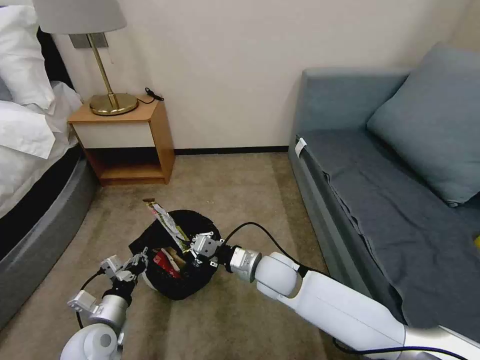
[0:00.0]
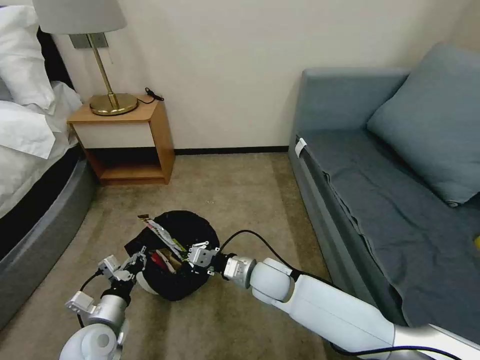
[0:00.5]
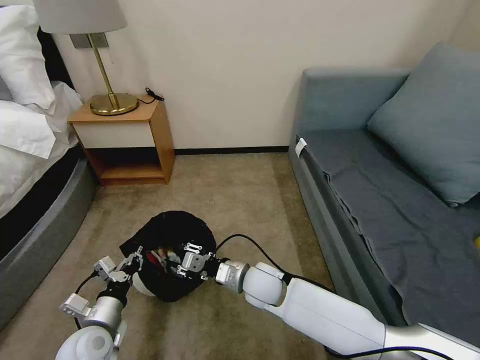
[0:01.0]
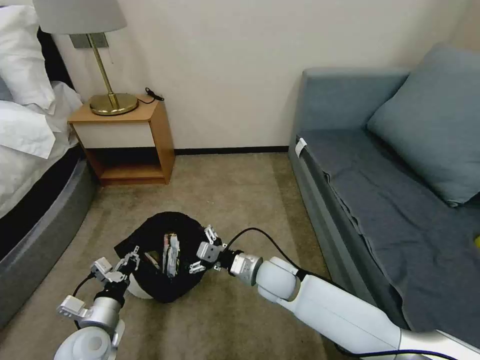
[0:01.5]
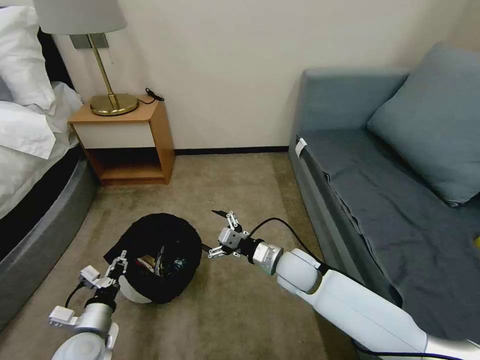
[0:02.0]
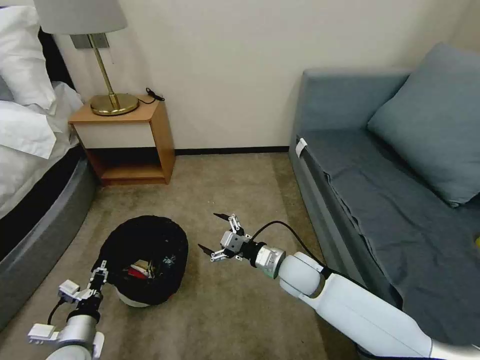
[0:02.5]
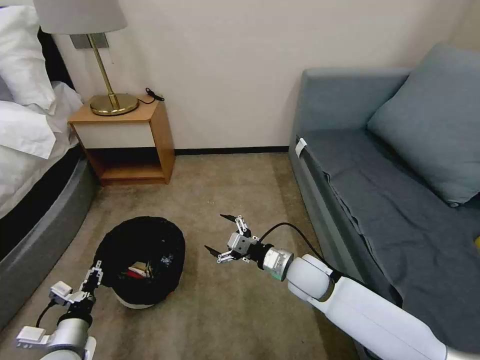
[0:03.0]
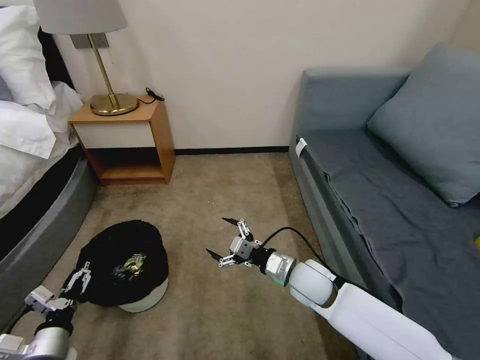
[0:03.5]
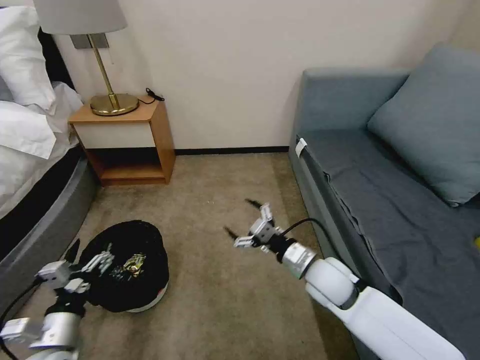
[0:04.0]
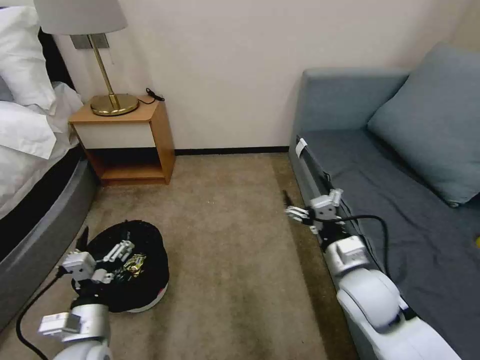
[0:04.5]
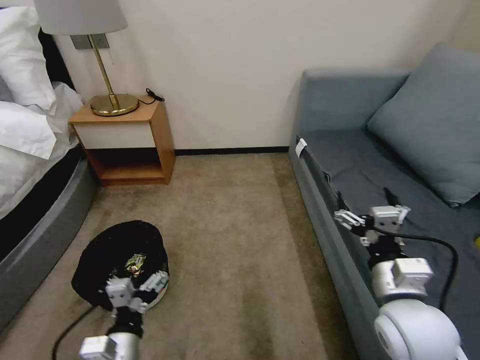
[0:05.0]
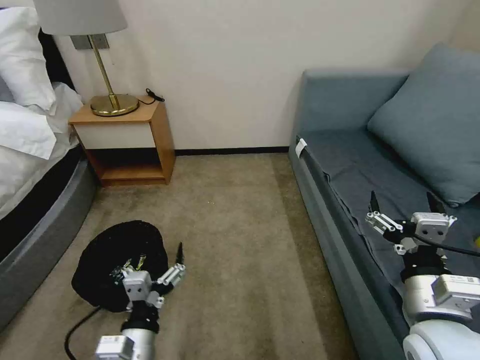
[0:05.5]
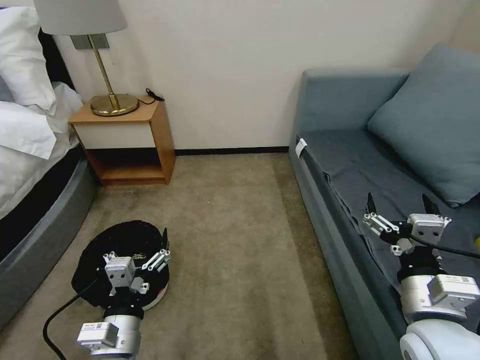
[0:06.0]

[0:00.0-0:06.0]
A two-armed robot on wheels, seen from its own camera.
Task of the whole recording: Pick up the trash bin, then pick up the garbage on the floor and place it into the trash bin.
0:00.0 to 0:02.0: The right gripper ends up roughly 5 cm from where it was, and opens up.
0:02.0 to 0:04.0: The left gripper travels upward by some 5 cm, and opens up. The right gripper travels to the right by approximately 5 cm.
0:04.0 to 0:06.0: The right gripper is displaced backward, upward and to the right by about 20 cm, while the left gripper moves to the right, approximately 15 cm.

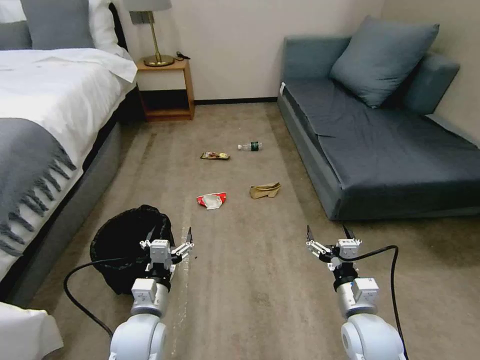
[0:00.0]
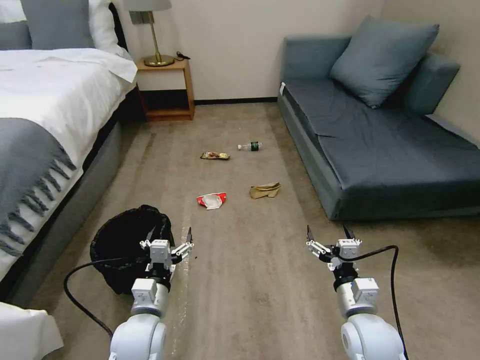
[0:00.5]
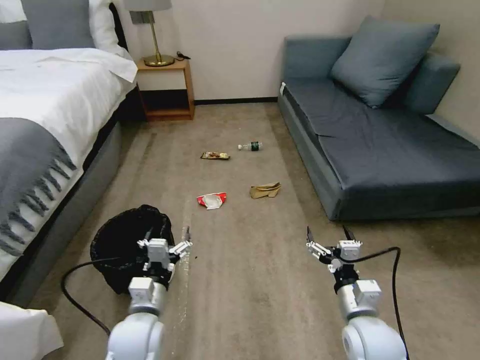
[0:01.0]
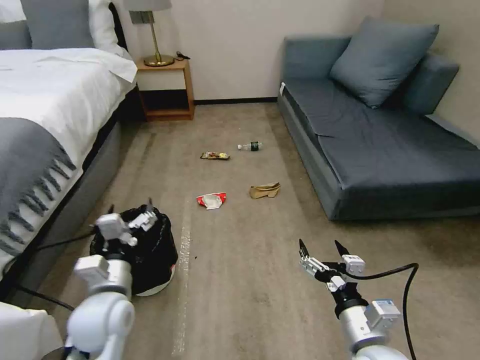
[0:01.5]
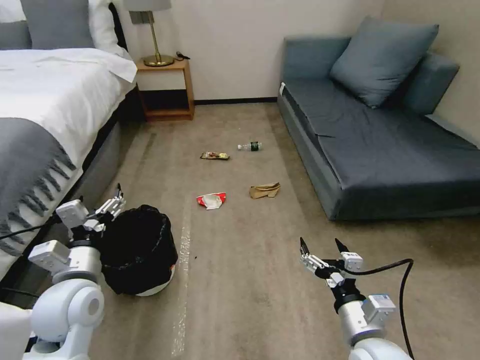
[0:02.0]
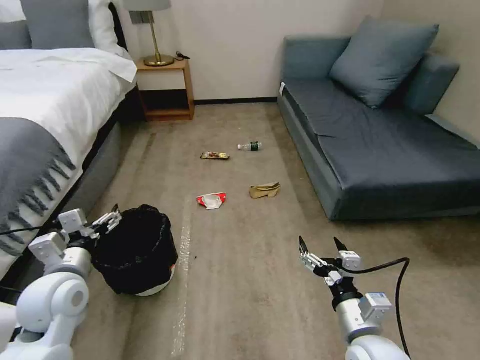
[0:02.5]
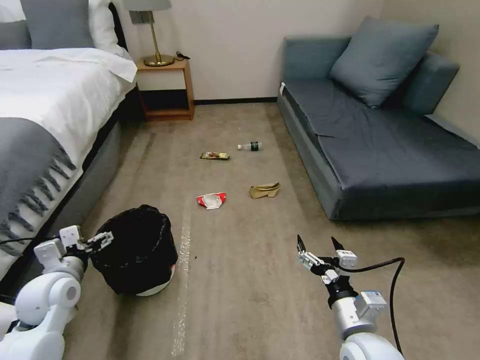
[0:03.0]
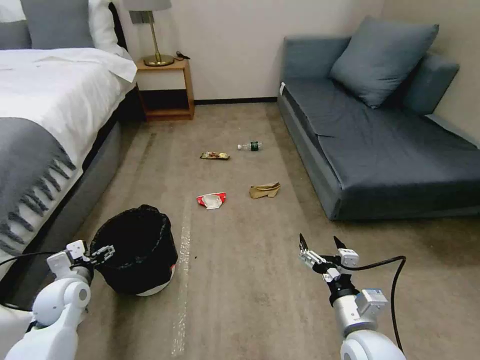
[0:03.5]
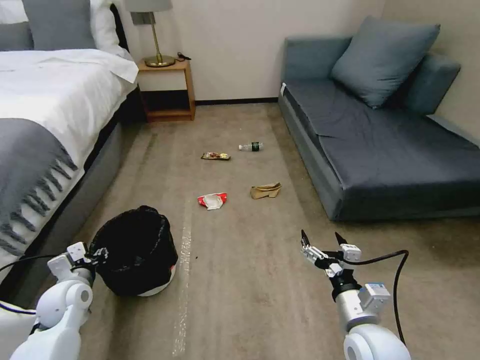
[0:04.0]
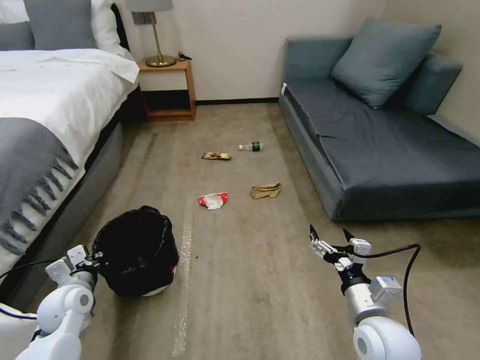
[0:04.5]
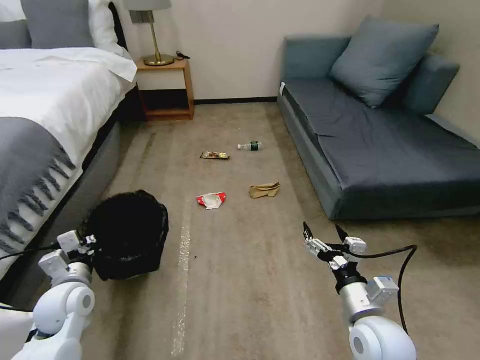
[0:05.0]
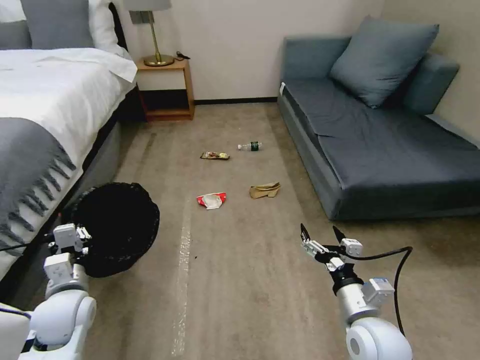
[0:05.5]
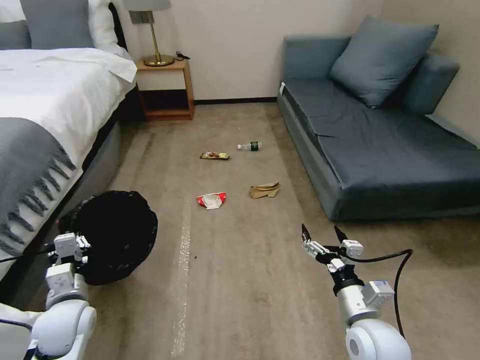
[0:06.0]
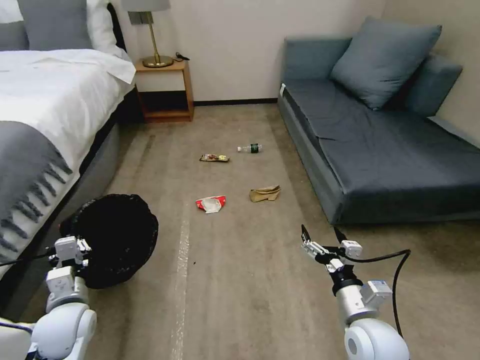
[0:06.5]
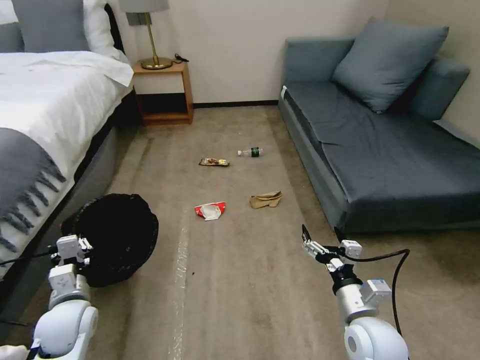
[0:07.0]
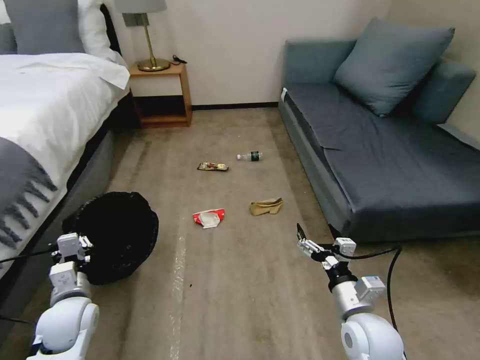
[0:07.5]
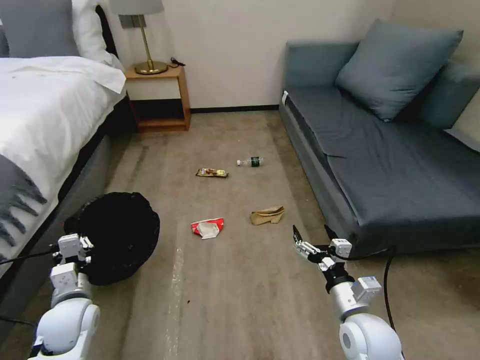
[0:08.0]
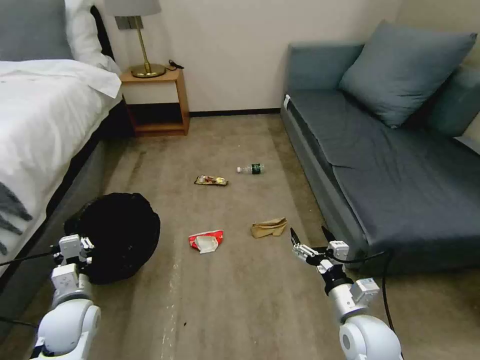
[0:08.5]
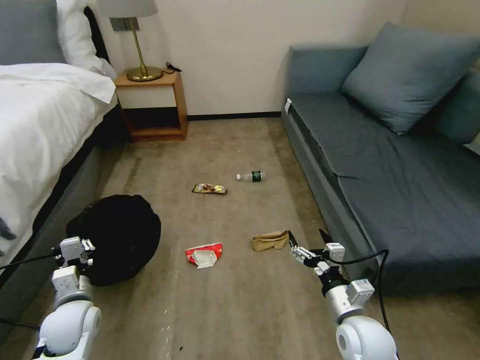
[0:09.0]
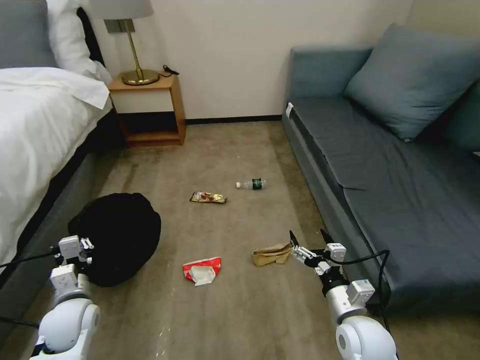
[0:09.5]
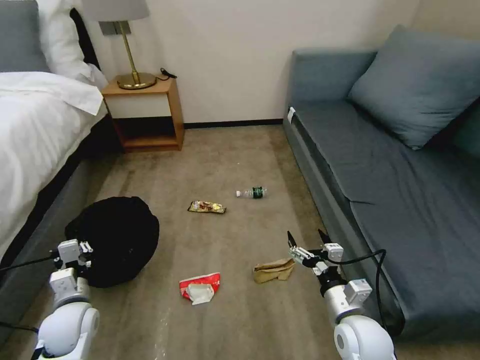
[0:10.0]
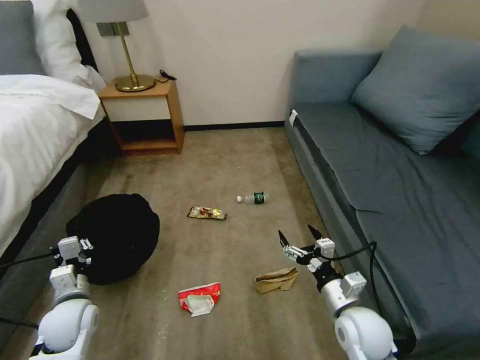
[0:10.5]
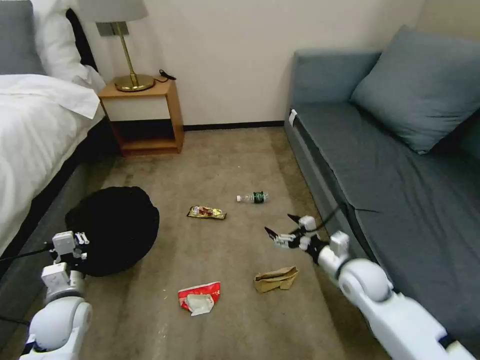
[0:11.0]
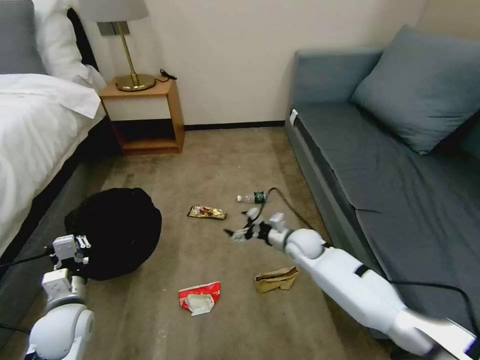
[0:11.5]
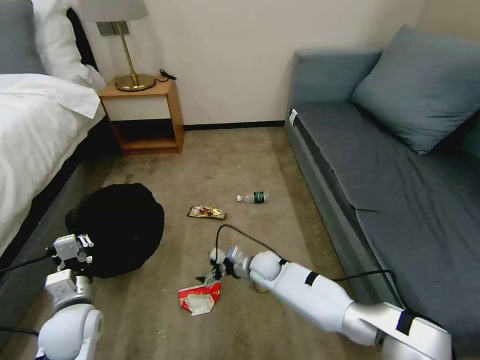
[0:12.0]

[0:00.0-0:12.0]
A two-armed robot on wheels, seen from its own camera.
Task of the whole recording: Pick up the trash bin, then pick up the garbage on the floor and place it into the trash bin.
0:02.0 to 0:04.0: The left gripper travels downward and to the left by some 15 cm, and closes up.
0:04.0 to 0:06.0: The left gripper goes about 5 cm backward, and closes its fingers.
0:10.0 to 0:12.0: The right gripper heads forward, to the left and downward, covering approximately 30 cm.

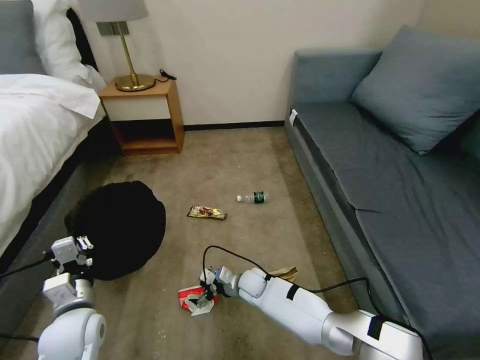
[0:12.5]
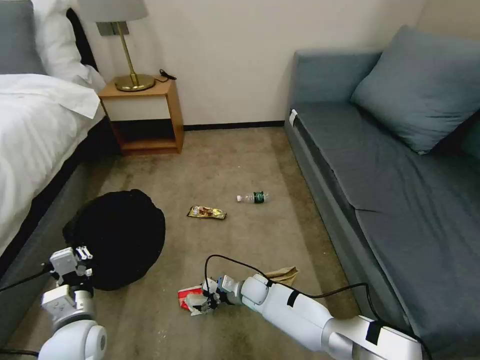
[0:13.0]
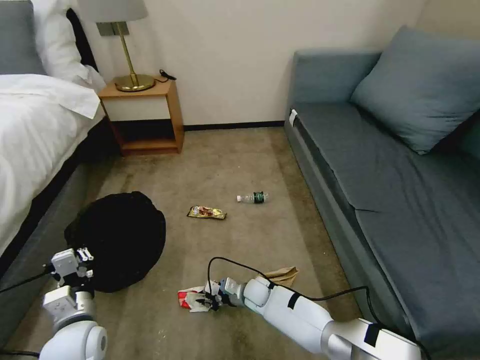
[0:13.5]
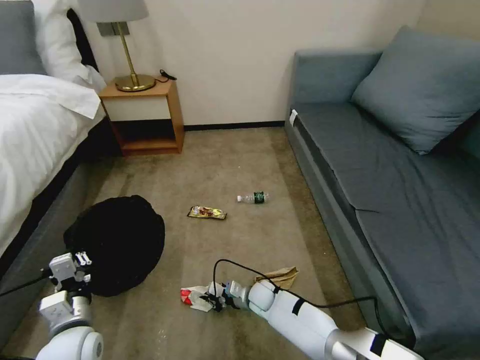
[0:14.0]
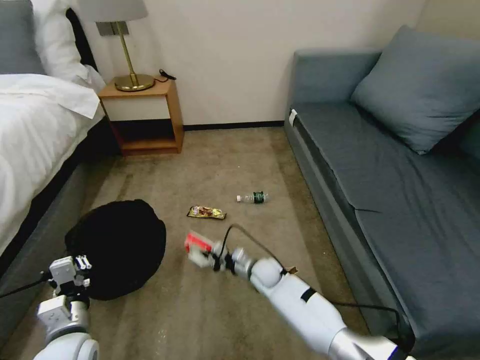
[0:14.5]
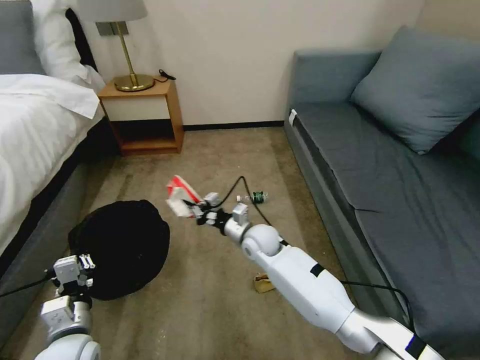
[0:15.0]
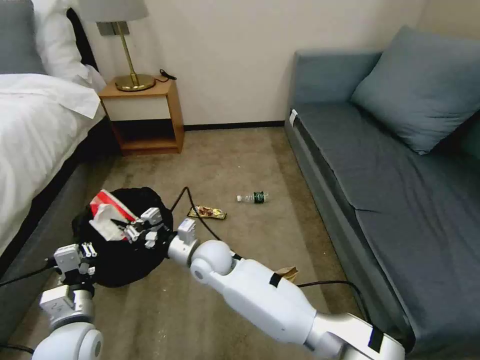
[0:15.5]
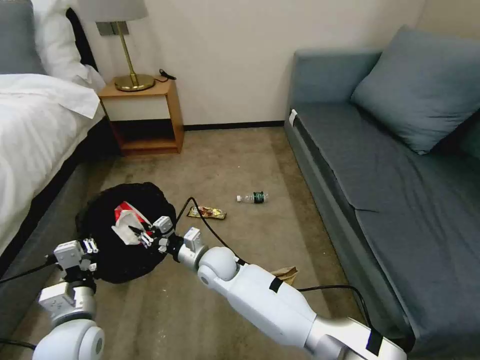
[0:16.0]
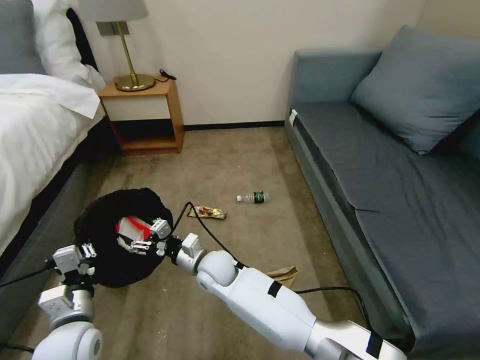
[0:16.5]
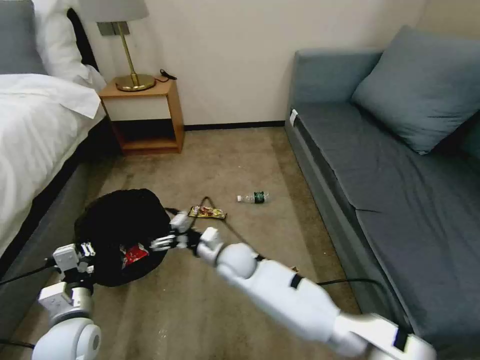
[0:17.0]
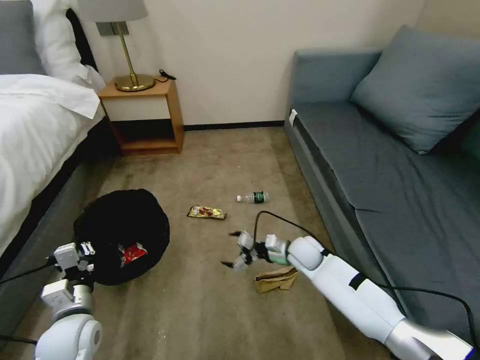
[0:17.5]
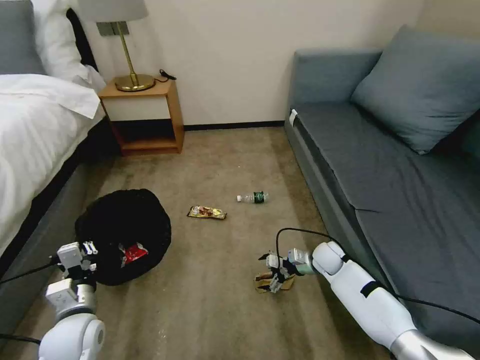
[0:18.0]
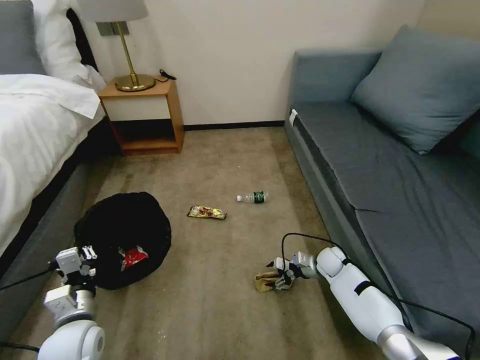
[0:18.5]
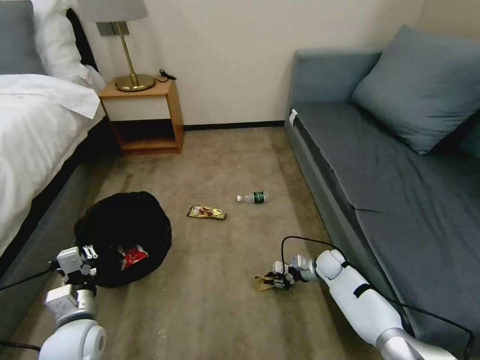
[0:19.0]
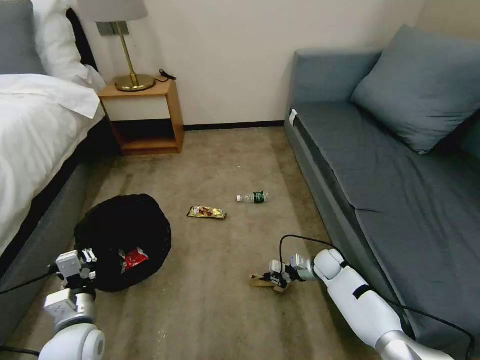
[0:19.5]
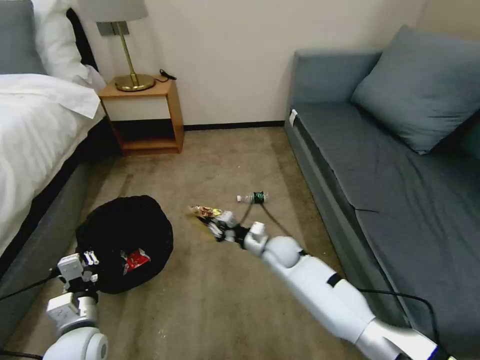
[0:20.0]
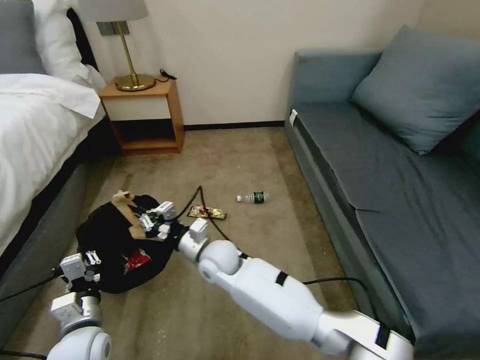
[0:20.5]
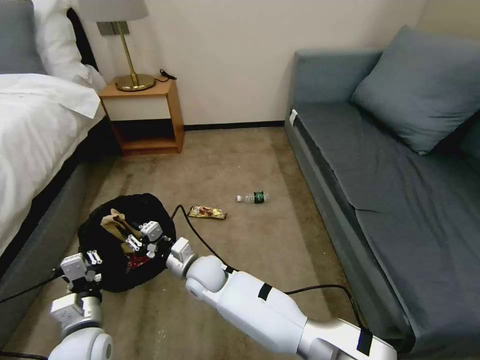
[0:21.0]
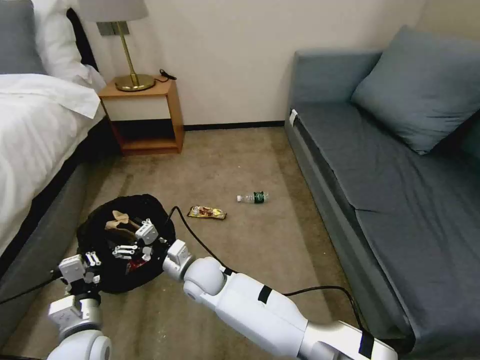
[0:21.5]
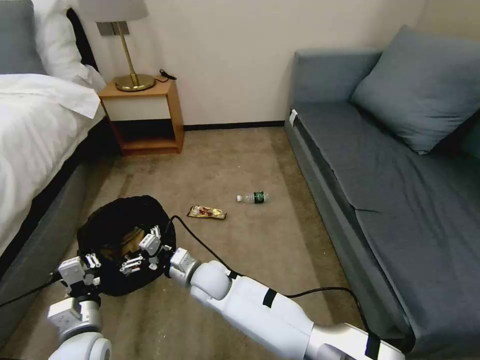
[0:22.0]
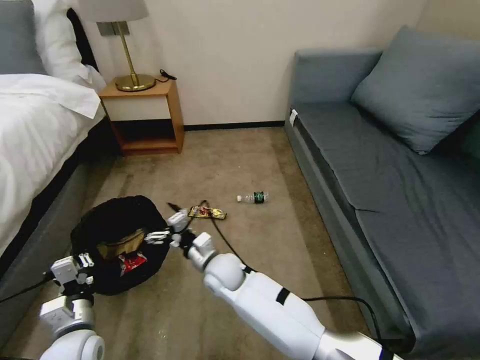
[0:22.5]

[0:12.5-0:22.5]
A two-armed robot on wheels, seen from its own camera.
Task of the whole recording: Pick up the trash bin, then pick up the garbage on the floor and place it into the trash bin.
0:12.5 to 0:14.5: The right gripper moves approximately 5 cm, and closes its fingers.
0:14.5 to 0:16.5: The right gripper heads to the left and upward, covering approximately 20 cm, and opens.
0:16.5 to 0:18.5: The right gripper moves to the right, roughly 35 cm.
0:18.5 to 0:20.5: The right gripper is displaced to the left and upward by some 40 cm, and closes its fingers.
0:20.5 to 0:22.5: The right gripper opens its fingers.
